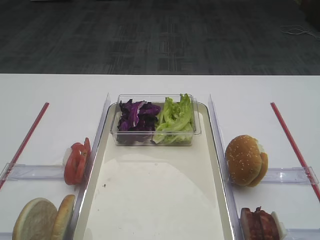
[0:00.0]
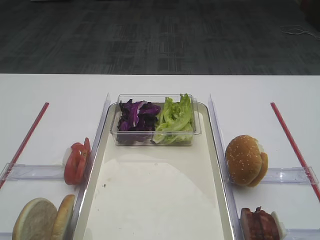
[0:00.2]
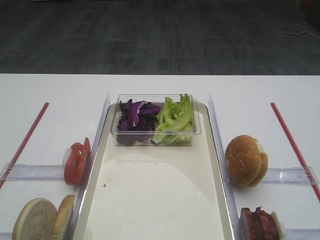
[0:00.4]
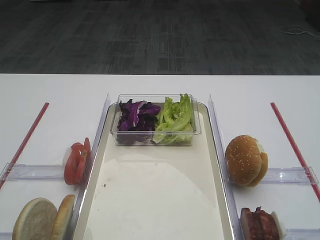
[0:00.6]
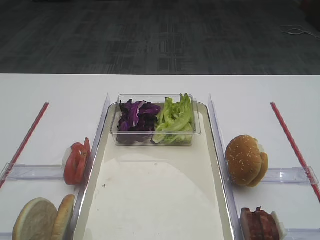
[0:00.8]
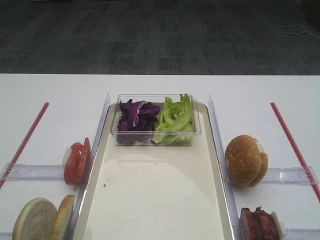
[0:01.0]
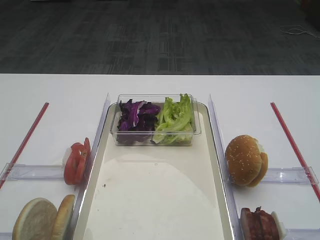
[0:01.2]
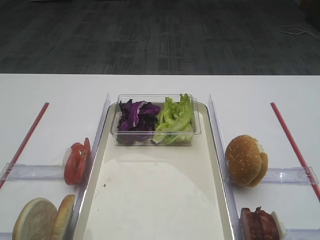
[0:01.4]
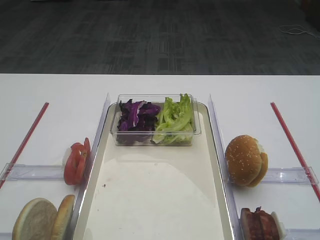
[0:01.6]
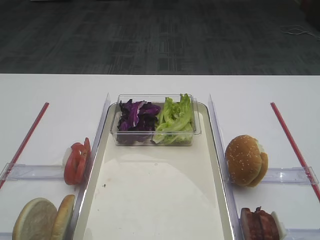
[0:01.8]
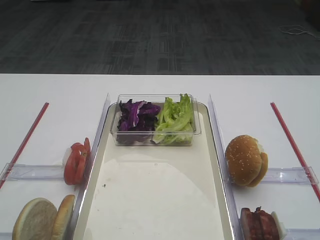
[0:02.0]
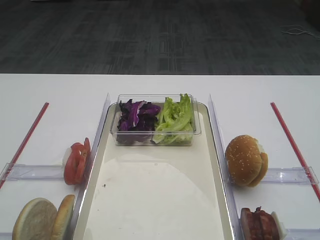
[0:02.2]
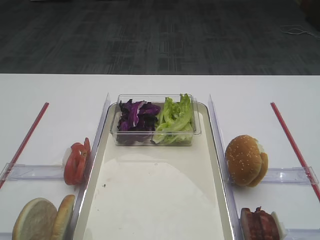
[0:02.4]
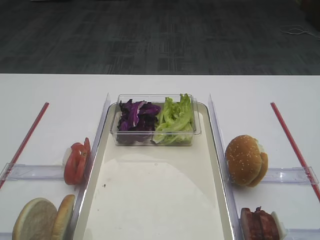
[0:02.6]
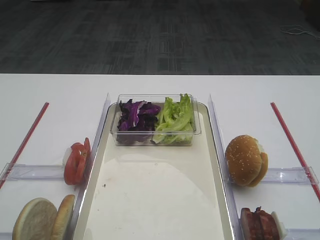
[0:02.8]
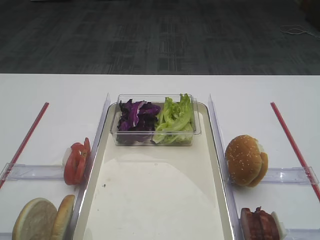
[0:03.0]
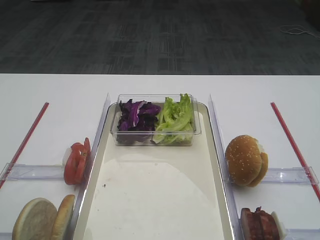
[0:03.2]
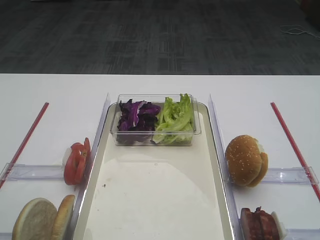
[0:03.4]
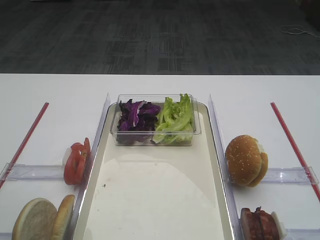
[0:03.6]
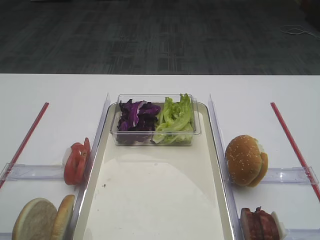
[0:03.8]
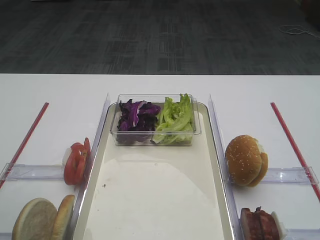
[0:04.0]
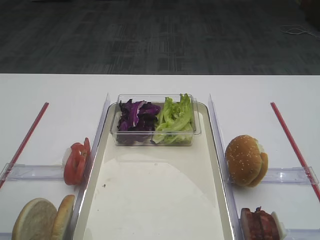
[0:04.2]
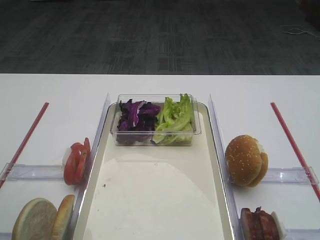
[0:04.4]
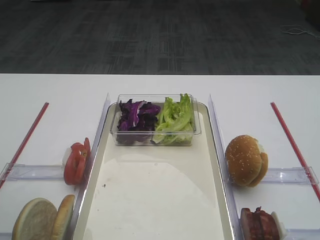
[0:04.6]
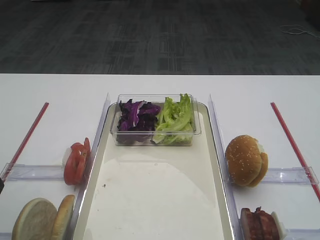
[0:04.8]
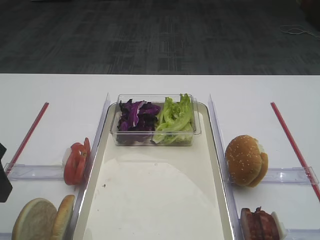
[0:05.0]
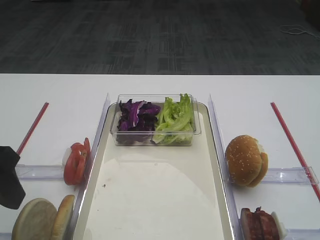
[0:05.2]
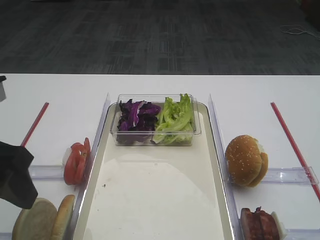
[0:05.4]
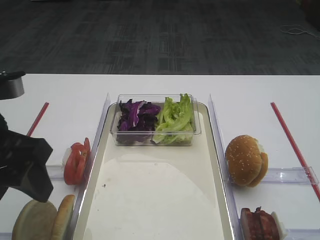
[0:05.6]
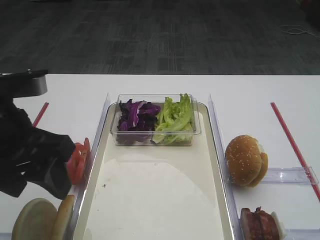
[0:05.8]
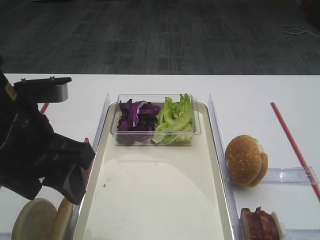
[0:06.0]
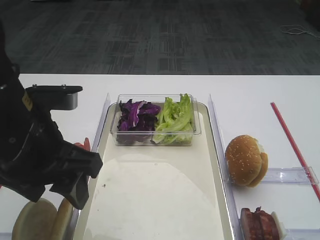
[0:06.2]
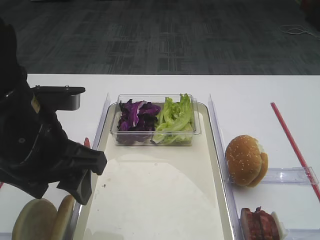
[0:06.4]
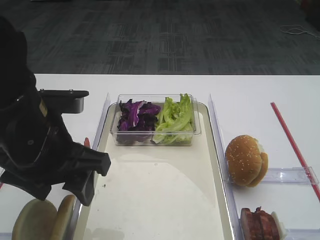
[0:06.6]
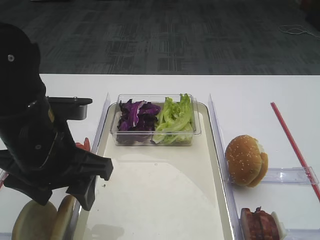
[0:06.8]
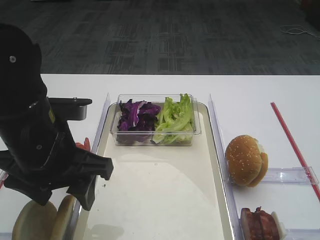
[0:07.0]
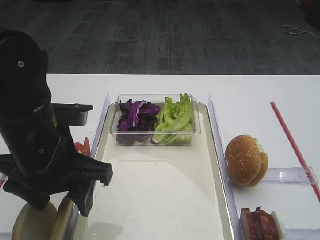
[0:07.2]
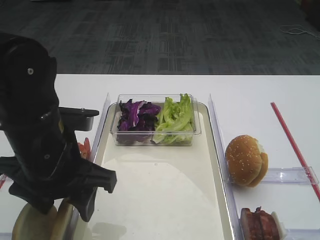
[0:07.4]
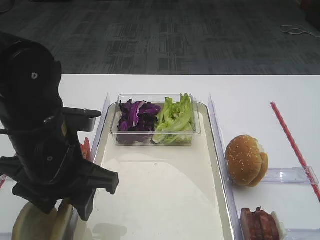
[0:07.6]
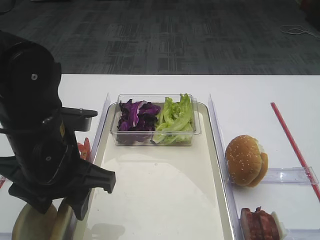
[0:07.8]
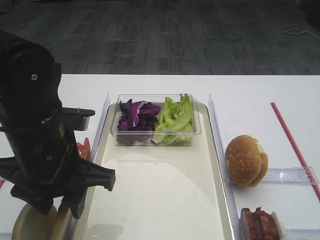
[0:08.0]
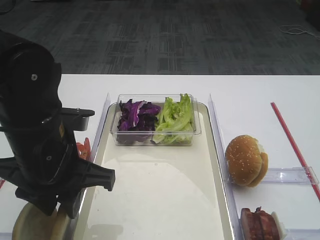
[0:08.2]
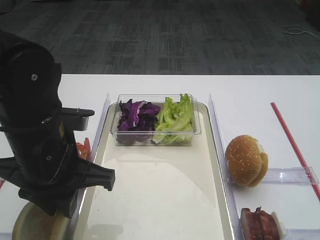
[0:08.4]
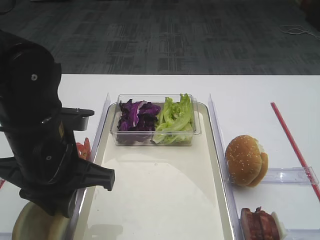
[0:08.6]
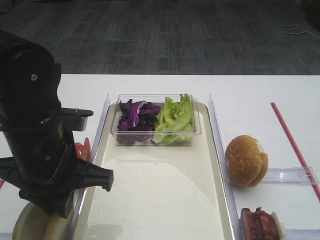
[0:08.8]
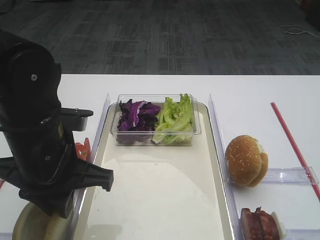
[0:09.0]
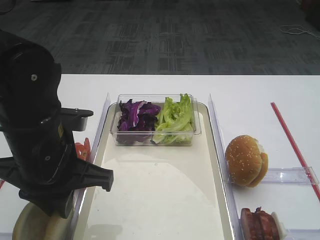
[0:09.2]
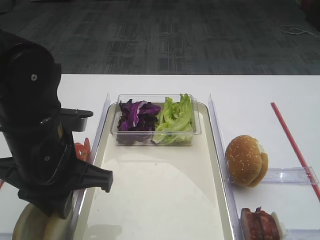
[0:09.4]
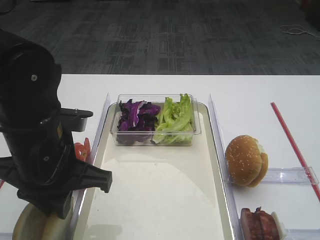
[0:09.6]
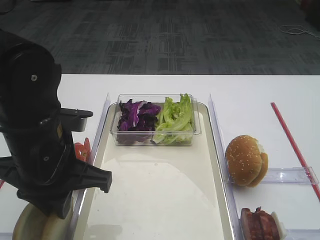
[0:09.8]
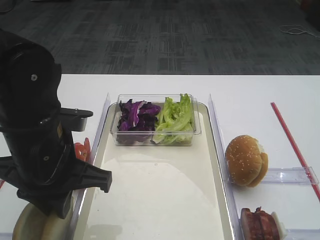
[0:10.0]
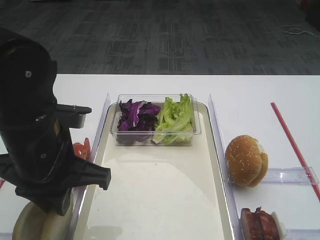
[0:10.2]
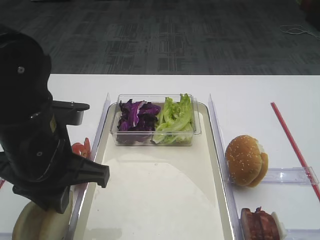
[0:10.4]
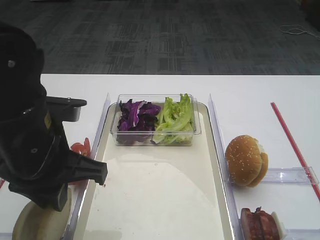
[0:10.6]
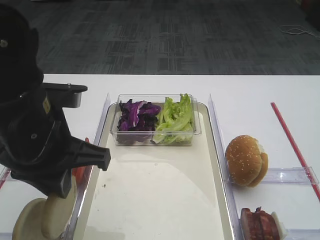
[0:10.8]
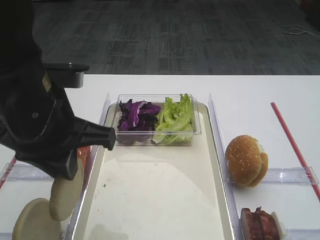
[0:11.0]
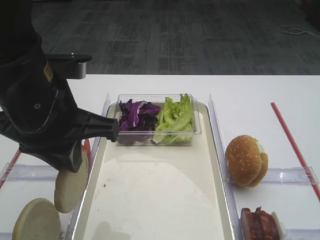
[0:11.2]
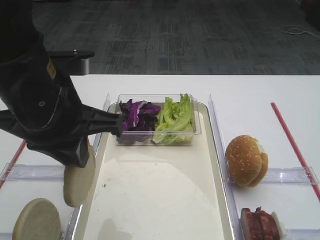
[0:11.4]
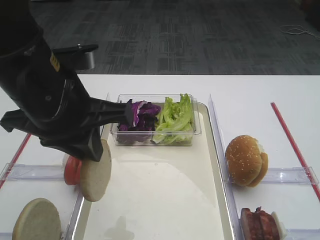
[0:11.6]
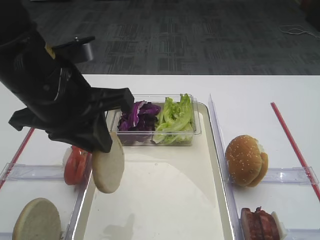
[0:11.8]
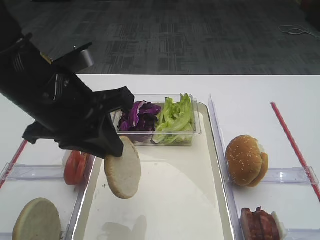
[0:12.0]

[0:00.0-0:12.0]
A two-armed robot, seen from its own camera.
Step, 0:00.0 to 0:10.8: Pick up the bread slice with the left gripper.
0:04.4 to 0:06.0: The left gripper travels to the right by some 10 cm.
0:06.0 to 0:07.6: The left gripper is displaced downward by approximately 5 cm.
0:07.6 to 0:09.0: The left gripper closes up.
0:09.0 to 0:10.4: Both grippers stay put.
0:10.4 to 0:12.0: The left gripper ends up roughly 5 cm from where it was.

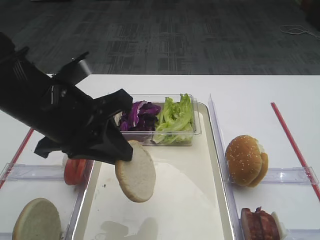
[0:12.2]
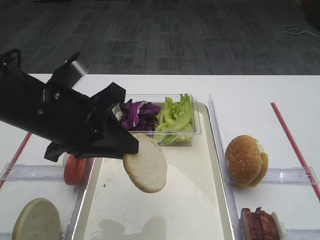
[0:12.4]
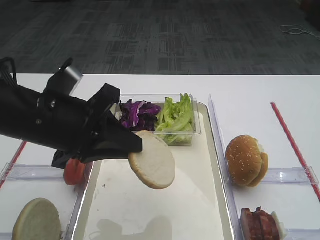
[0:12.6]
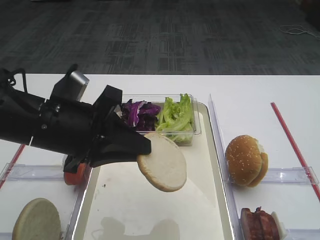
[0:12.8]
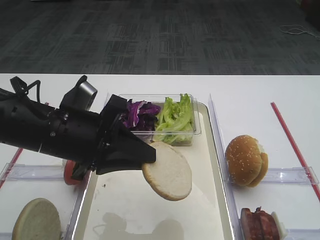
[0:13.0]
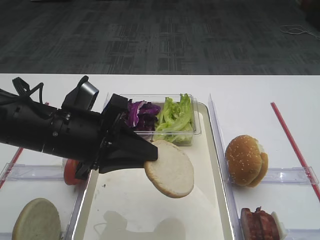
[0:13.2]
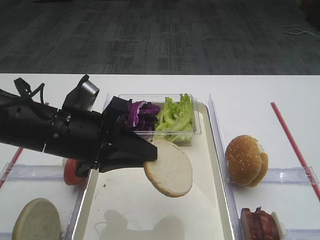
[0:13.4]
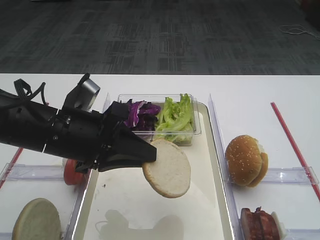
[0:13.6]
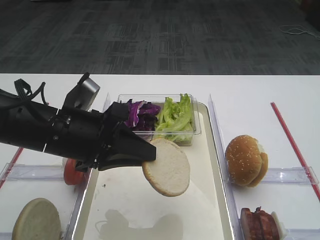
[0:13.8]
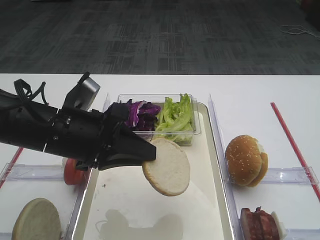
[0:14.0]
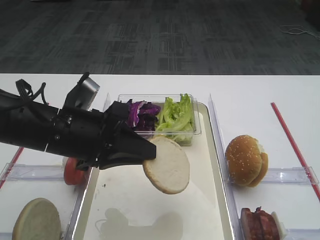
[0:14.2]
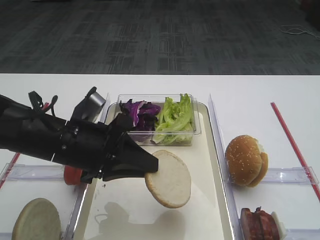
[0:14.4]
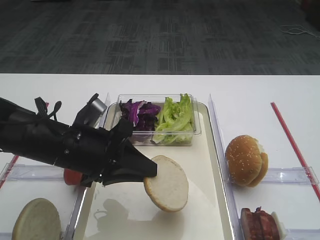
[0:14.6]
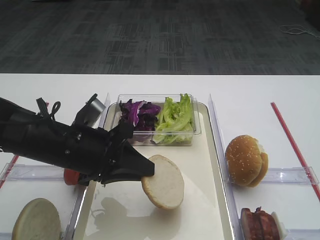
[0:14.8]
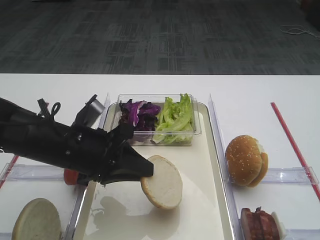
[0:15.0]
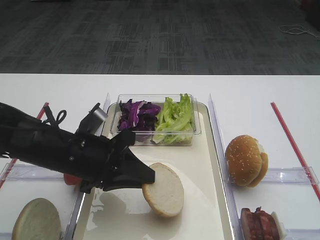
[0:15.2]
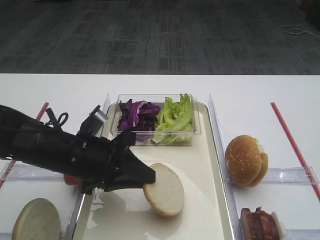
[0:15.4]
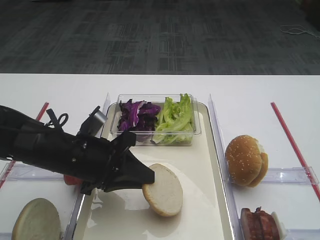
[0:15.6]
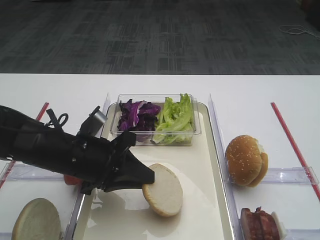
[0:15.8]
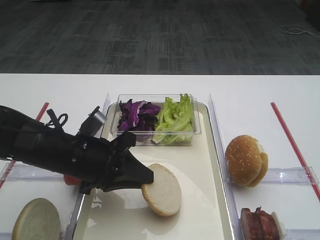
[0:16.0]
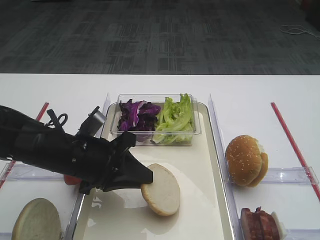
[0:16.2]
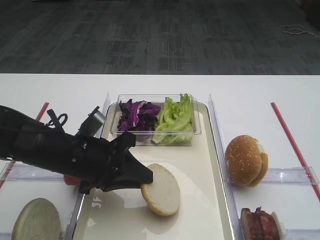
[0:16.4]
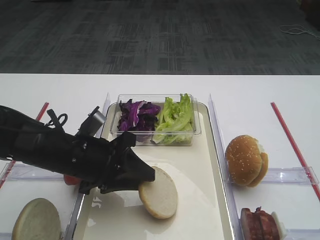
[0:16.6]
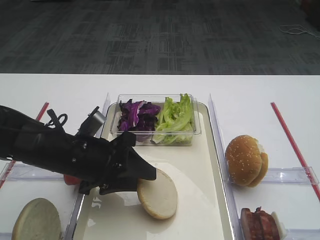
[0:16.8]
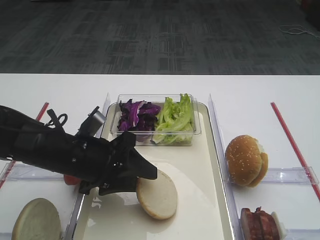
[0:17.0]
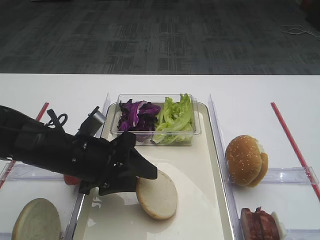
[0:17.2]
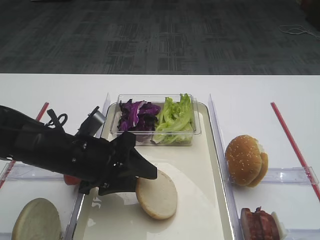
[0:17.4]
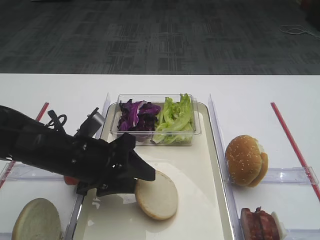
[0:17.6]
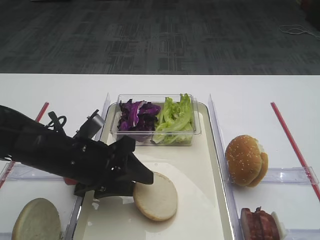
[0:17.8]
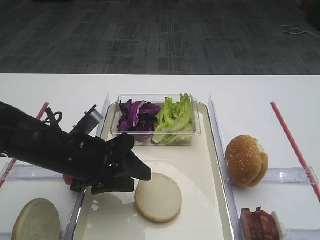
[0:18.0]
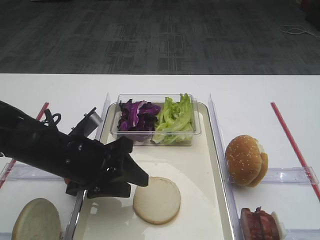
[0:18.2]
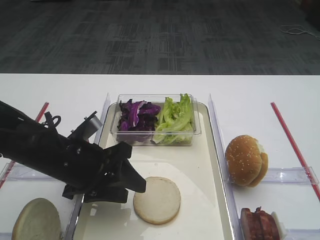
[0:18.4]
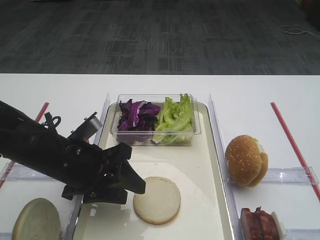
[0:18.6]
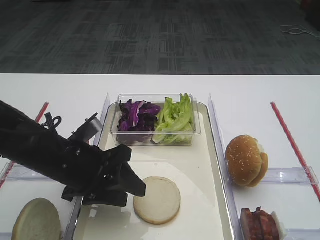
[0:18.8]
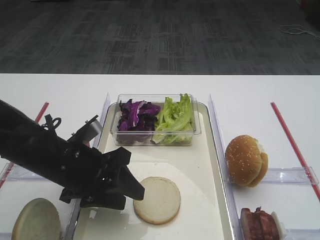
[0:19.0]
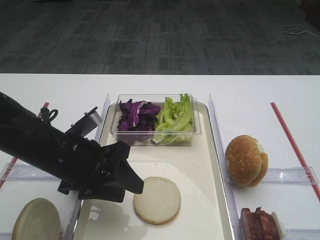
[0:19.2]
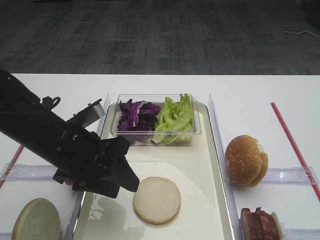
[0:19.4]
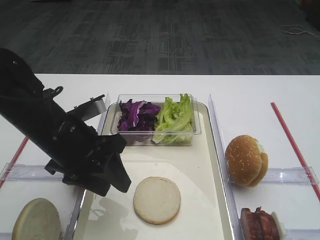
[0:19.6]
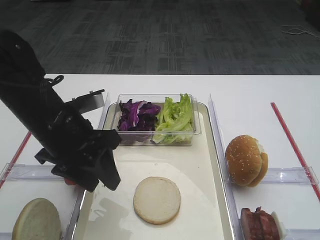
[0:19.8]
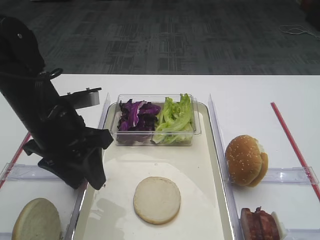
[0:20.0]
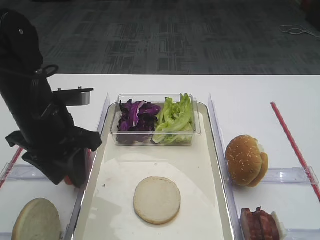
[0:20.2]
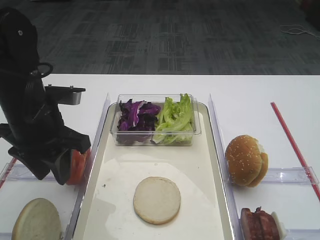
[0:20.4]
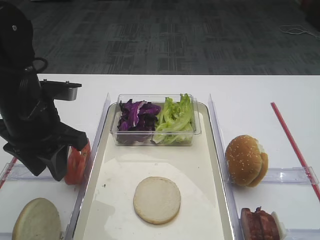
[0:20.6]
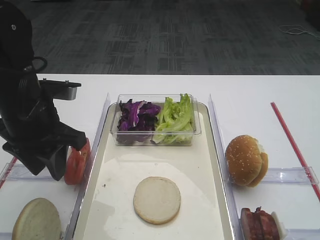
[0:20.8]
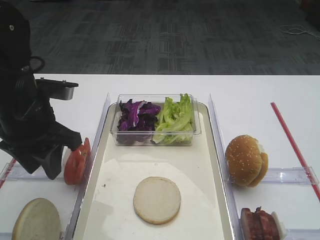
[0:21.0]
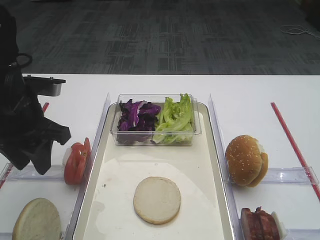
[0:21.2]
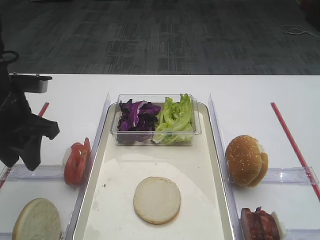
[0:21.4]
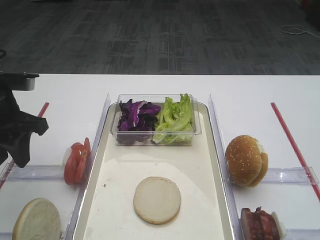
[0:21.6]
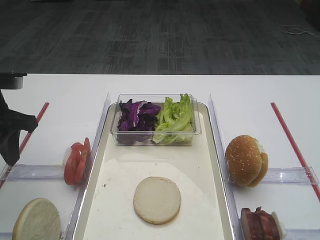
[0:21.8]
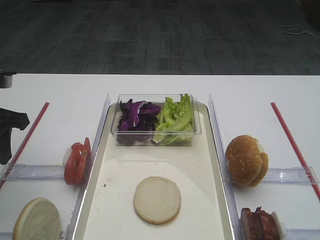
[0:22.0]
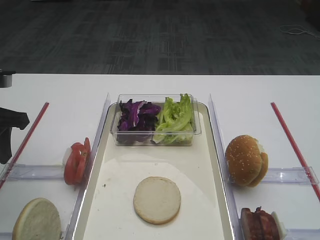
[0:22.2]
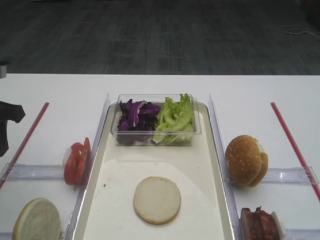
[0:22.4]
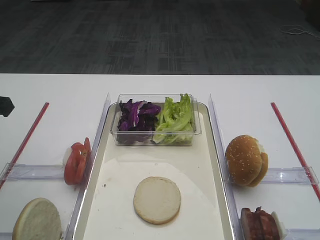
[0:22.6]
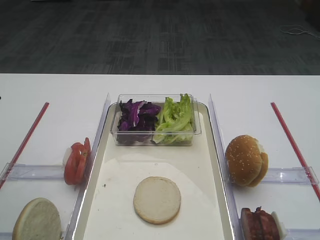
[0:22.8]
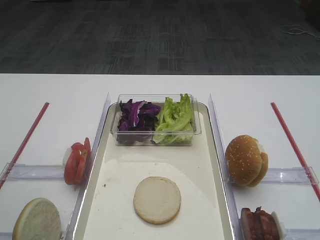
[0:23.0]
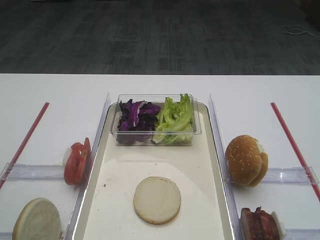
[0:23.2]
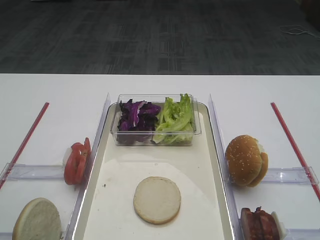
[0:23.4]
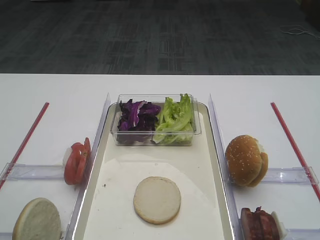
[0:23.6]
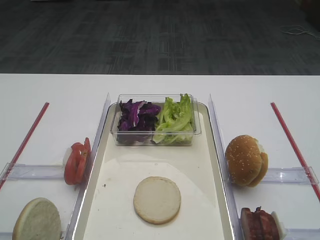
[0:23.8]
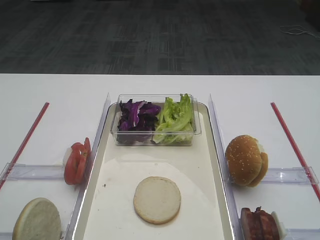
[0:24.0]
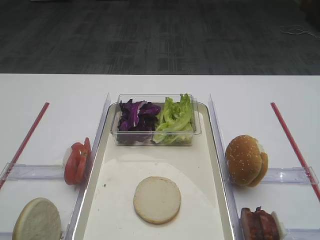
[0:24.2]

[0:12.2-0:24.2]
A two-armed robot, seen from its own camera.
Step, 0:12.2 to 0:17.8: Place the bread slice on the tray with the left gripper.
0:12.2 to 0:13.8: The left gripper heads downward, covering roughly 5 cm.
0:13.8 to 0:15.2: The left gripper travels downward by approximately 5 cm.
0:15.2 to 0:16.6: Both grippers stay about where they are.
0:16.6 to 0:18.2: The grippers move only a little.
0:18.2 to 0:19.8: The left gripper shifts approximately 5 cm upward.
0:19.8 to 0:21.2: The left gripper heads to the left, covering approximately 5 cm.
0:21.2 to 0:22.6: The left gripper moves to the left, approximately 5 cm.
0:22.6 to 0:24.2: The left gripper is displaced backward by some 20 cm.
